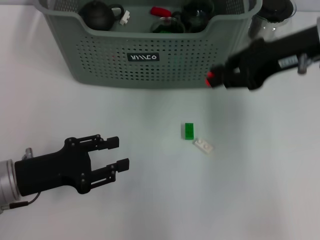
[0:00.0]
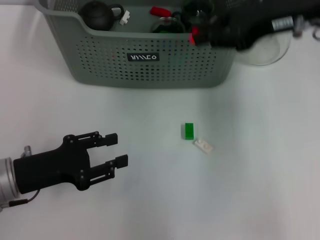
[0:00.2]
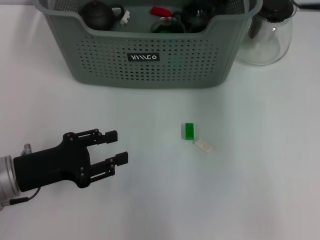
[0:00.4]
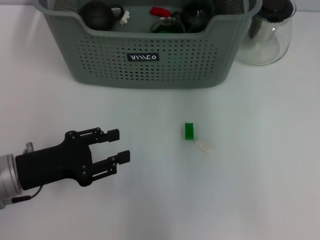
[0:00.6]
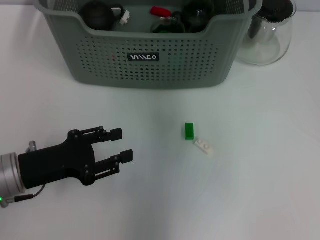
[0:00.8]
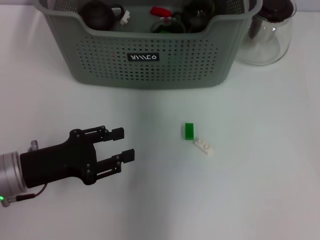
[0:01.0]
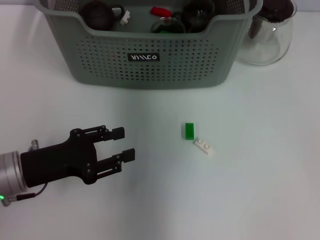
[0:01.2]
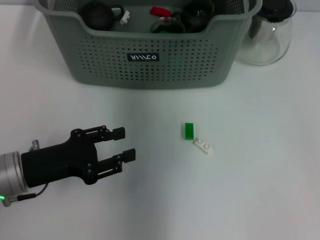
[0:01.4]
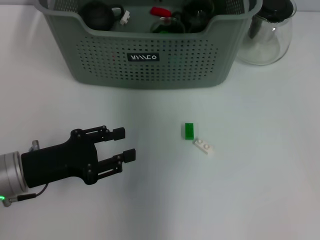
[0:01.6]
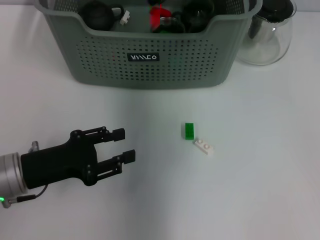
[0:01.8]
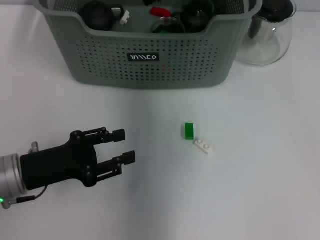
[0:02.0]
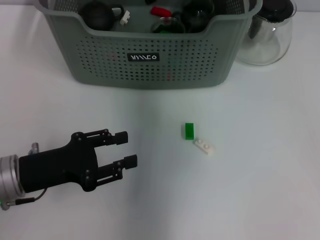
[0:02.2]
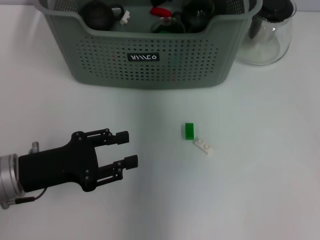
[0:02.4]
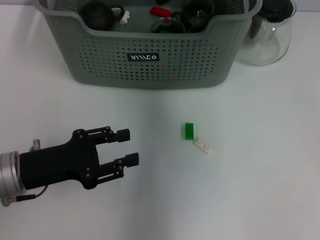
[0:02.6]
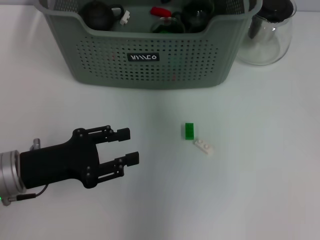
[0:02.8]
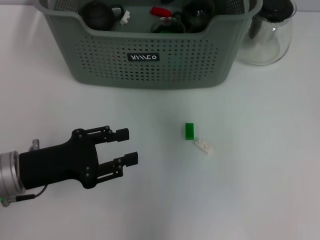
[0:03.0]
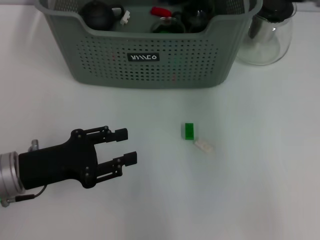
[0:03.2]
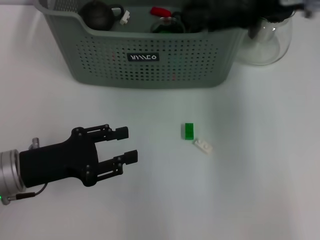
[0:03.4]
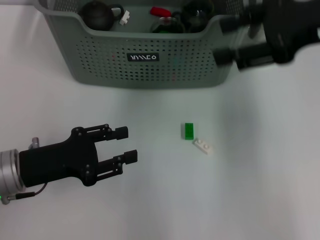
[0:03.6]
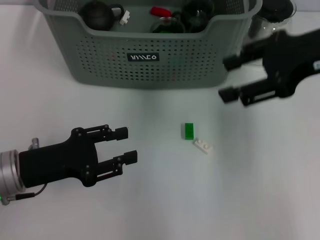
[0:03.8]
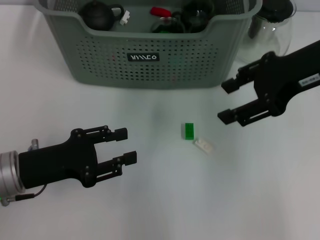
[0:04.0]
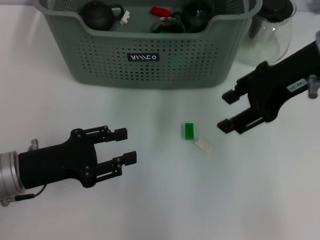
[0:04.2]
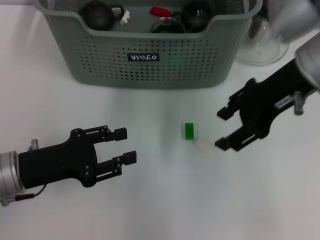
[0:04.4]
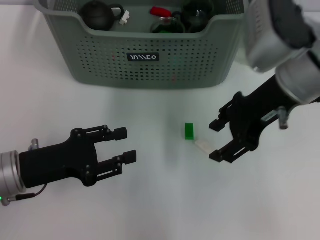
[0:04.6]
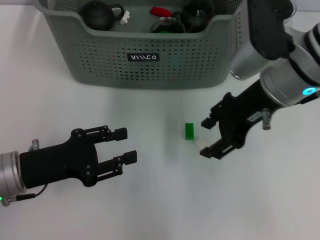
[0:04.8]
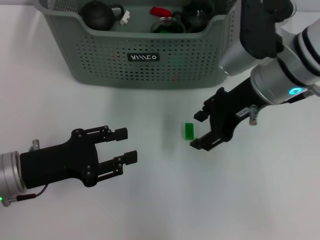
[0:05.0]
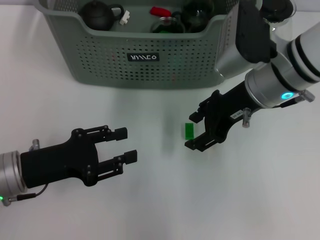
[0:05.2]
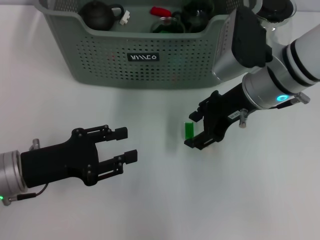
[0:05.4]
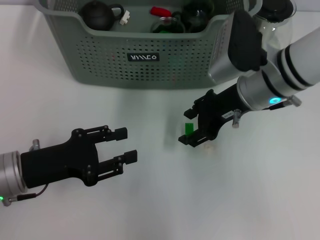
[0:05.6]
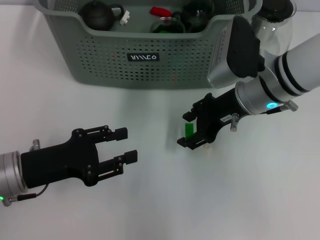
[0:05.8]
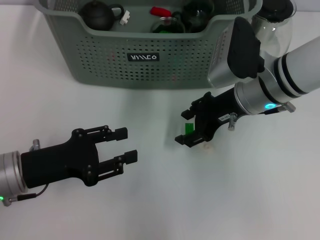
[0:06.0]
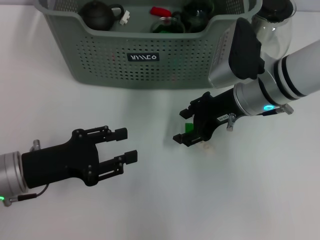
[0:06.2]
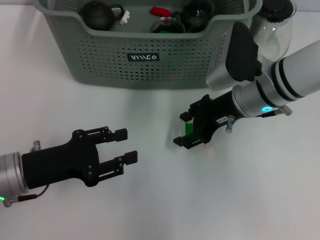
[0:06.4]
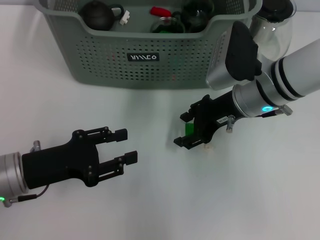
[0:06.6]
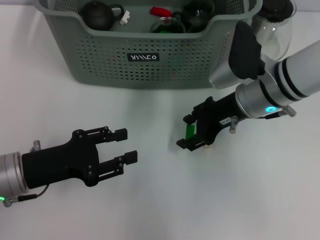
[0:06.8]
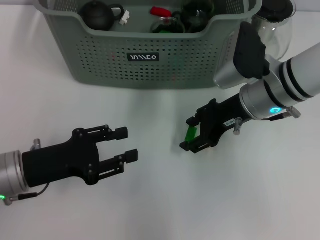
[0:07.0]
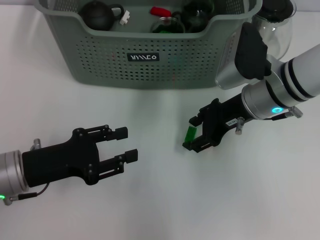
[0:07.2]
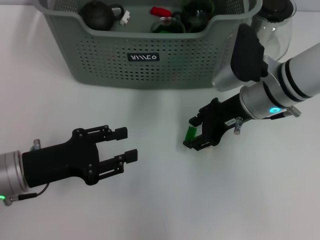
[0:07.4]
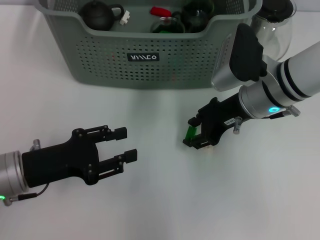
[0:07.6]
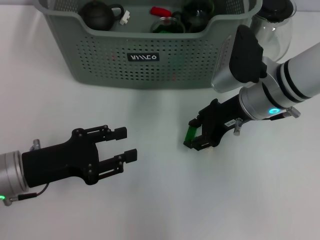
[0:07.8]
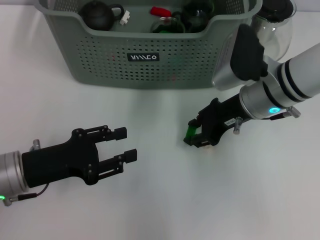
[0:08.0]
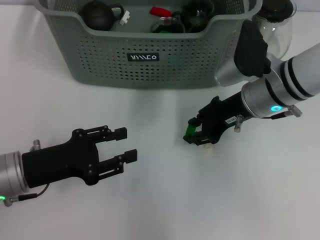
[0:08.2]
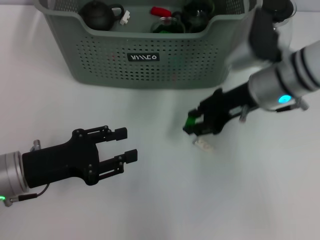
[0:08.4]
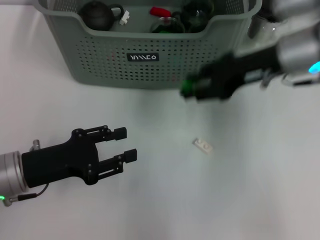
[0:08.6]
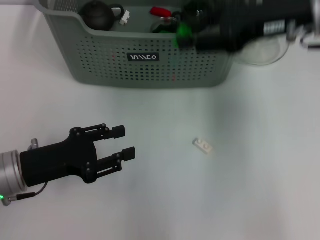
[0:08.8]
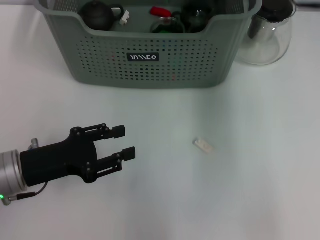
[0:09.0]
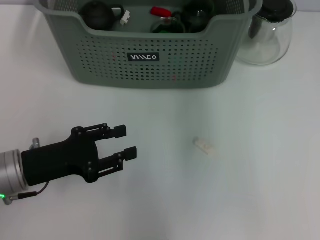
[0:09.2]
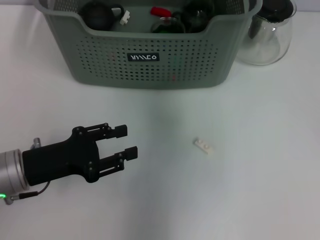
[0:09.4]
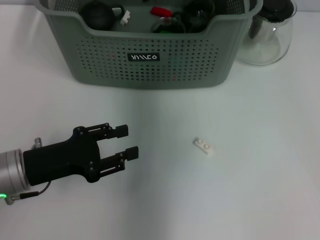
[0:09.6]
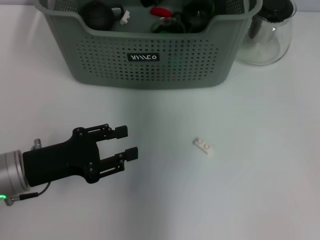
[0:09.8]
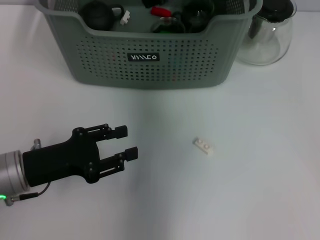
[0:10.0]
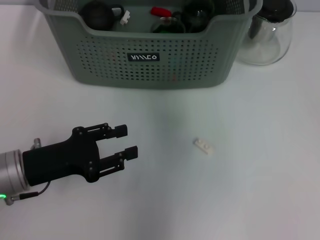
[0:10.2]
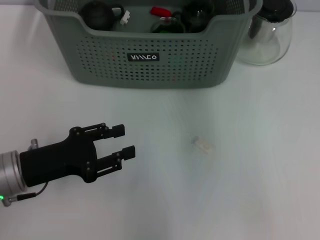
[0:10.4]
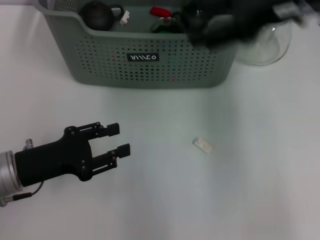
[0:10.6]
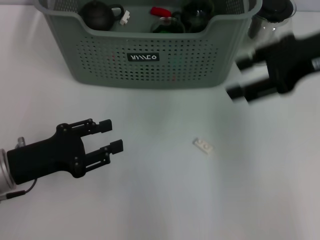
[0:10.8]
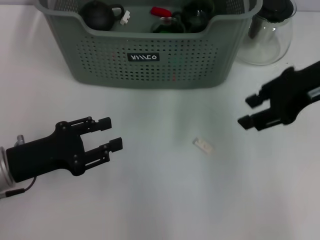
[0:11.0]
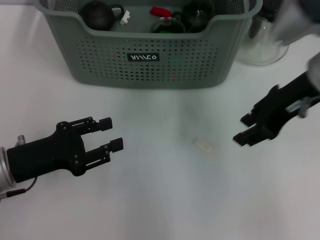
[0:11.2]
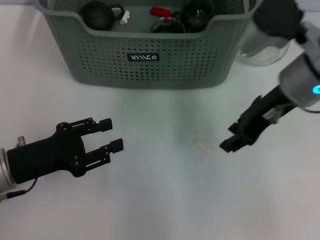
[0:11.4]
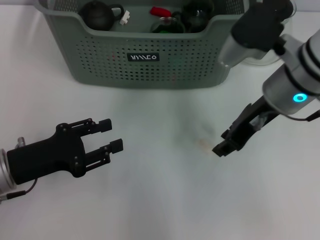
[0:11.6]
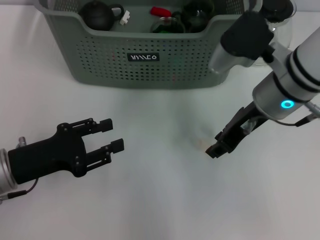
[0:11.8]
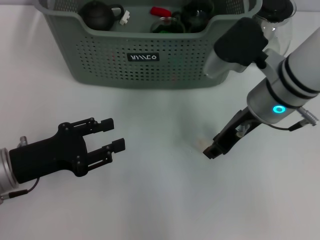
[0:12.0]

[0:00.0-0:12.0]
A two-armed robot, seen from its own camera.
Task of the whole recording: pick up the teacup on the table and place it into the storage bin, pick up the block on the table and place it into the storage bin.
Step, 0:00.0 to 0:03.0: Place the orange block in the storage box with right gripper.
Step, 0:03.2 to 0:08.2: Grasp the green block with right gripper.
Step, 0:08.4 to 0:10.4: Place the green block in the storage box with right gripper.
0:00.0 to 0:01.6: The right gripper travels to the left and forward by roughly 20 cm.
0:01.6 to 0:03.0: The right gripper goes roughly 5 cm to the right, and opens.
0:03.0 to 0:04.4: The right gripper goes about 10 cm backward and to the right.
0:04.4 to 0:06.0: The right gripper is displaced downward by some 10 cm.
0:06.0 to 0:07.6: Neither gripper changes place.
0:07.6 to 0:09.0: The right gripper shifts roughly 15 cm upward.
0:09.0 to 0:10.4: The right gripper moves approximately 10 cm to the left and comes back, and opens its fingers.
0:10.4 to 0:12.0: The right gripper heads downward and backward, covering about 15 cm, and closes up.

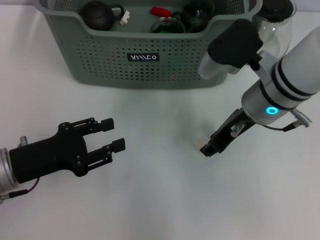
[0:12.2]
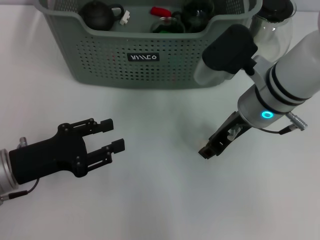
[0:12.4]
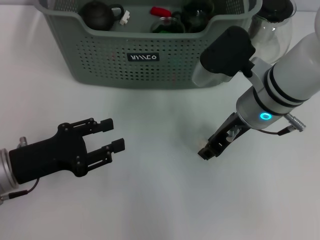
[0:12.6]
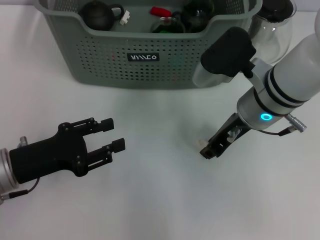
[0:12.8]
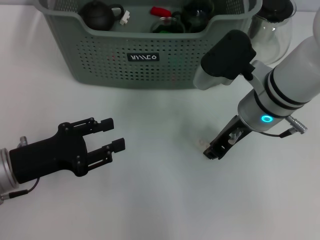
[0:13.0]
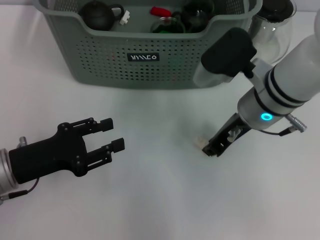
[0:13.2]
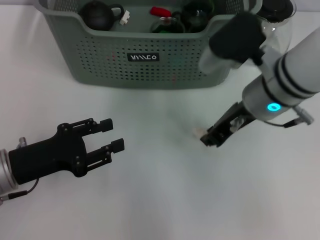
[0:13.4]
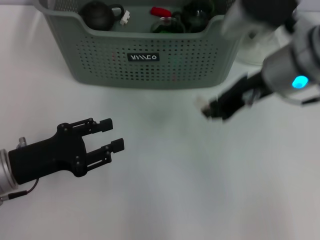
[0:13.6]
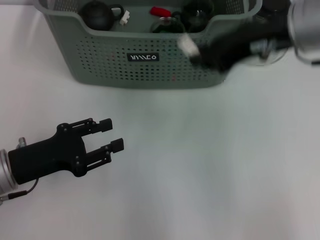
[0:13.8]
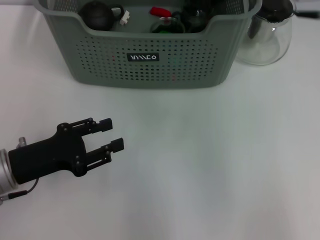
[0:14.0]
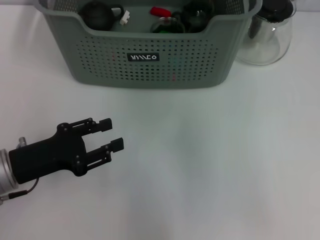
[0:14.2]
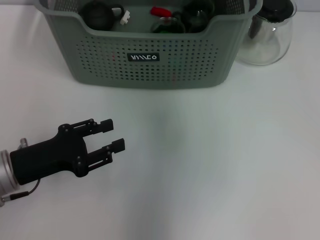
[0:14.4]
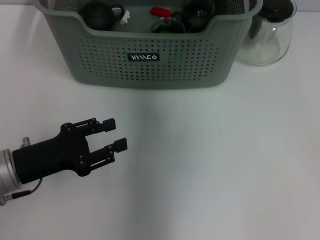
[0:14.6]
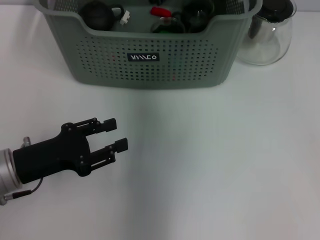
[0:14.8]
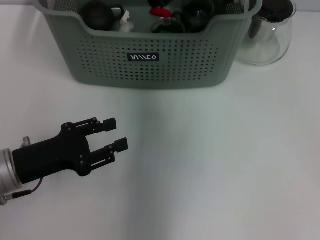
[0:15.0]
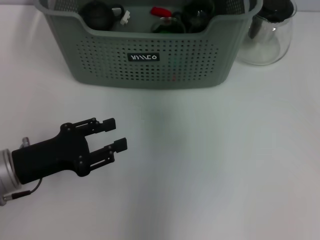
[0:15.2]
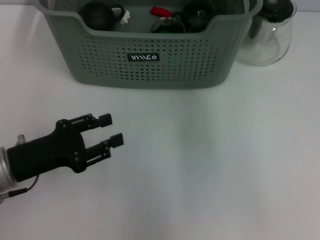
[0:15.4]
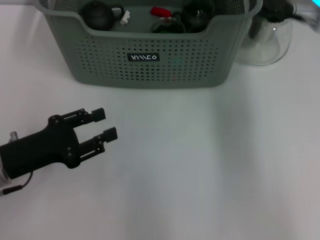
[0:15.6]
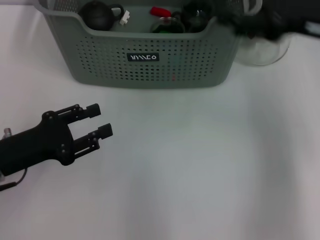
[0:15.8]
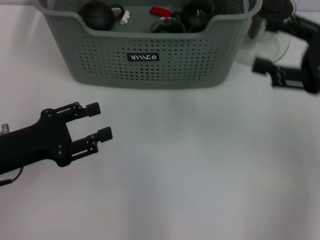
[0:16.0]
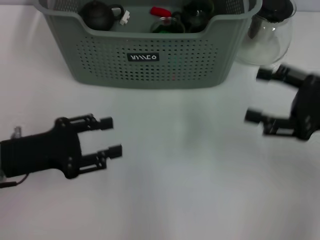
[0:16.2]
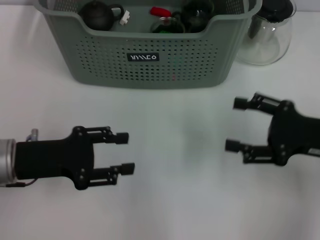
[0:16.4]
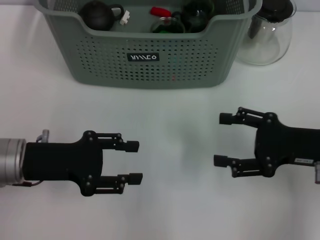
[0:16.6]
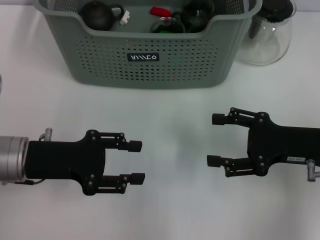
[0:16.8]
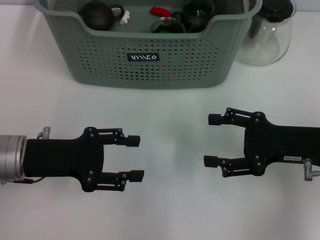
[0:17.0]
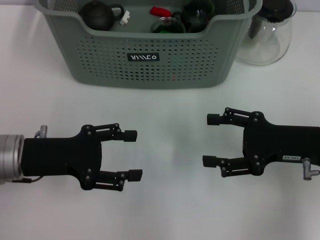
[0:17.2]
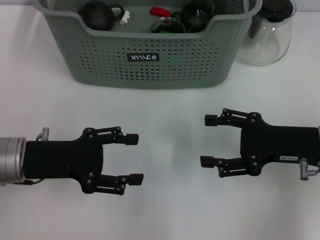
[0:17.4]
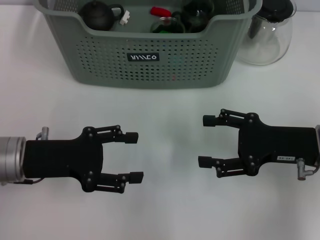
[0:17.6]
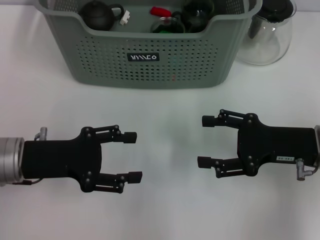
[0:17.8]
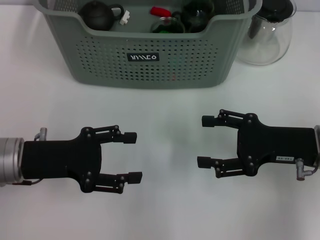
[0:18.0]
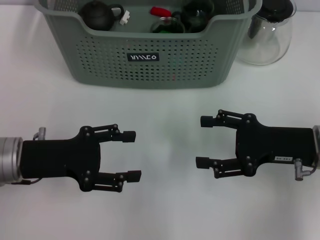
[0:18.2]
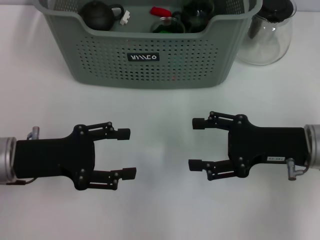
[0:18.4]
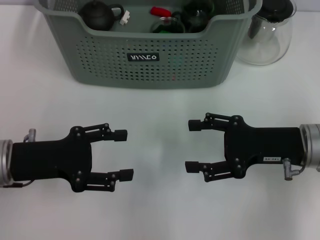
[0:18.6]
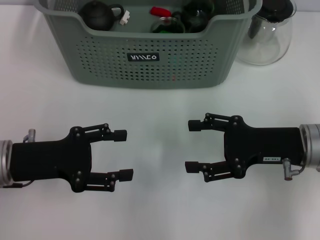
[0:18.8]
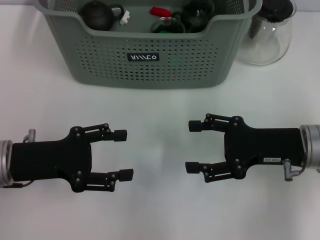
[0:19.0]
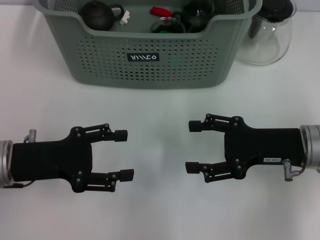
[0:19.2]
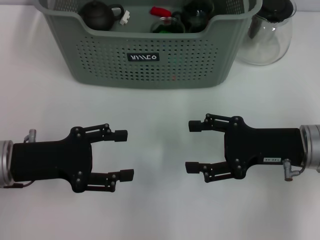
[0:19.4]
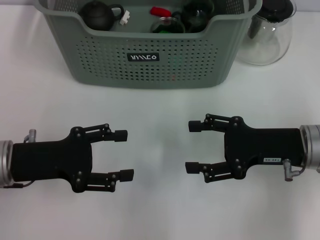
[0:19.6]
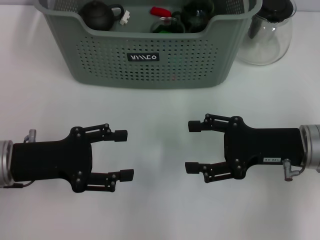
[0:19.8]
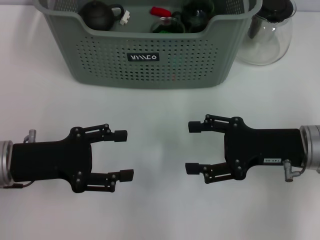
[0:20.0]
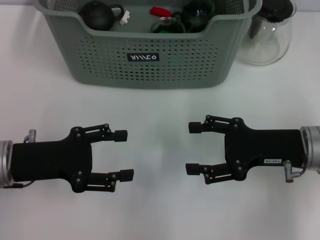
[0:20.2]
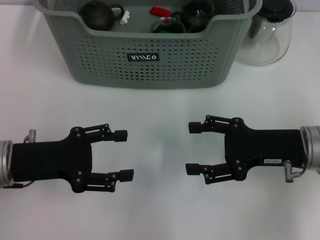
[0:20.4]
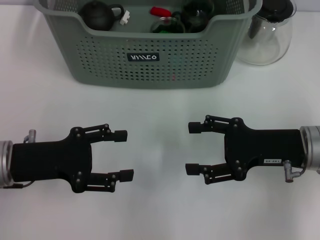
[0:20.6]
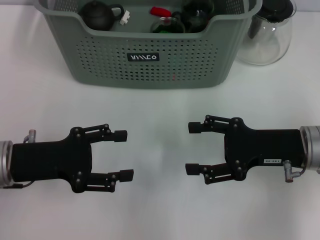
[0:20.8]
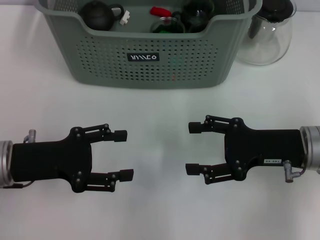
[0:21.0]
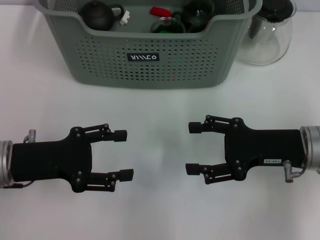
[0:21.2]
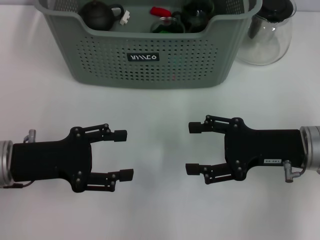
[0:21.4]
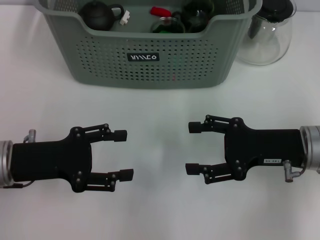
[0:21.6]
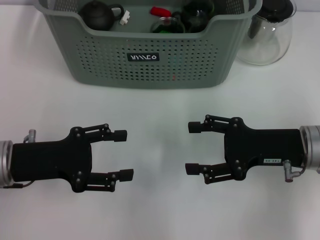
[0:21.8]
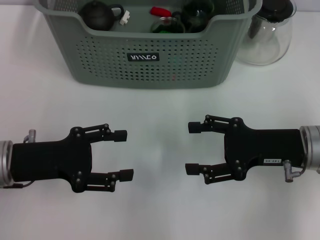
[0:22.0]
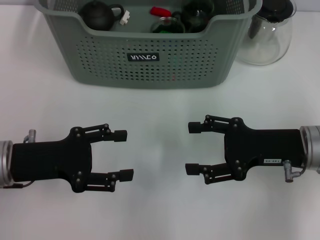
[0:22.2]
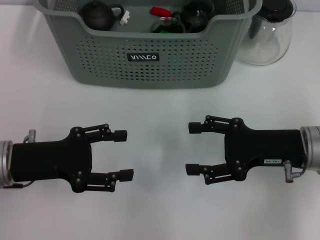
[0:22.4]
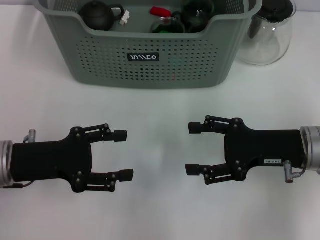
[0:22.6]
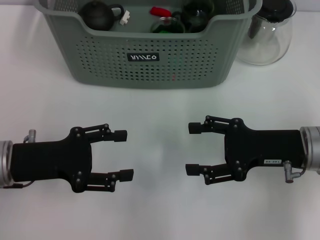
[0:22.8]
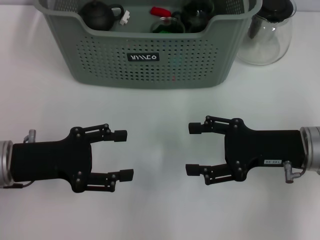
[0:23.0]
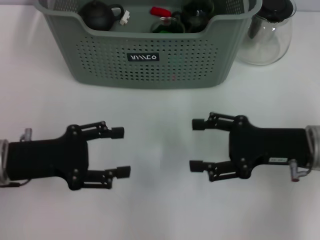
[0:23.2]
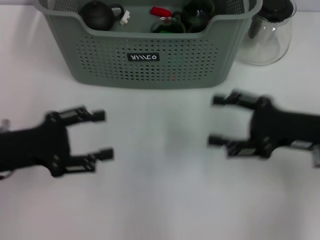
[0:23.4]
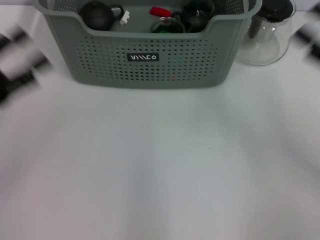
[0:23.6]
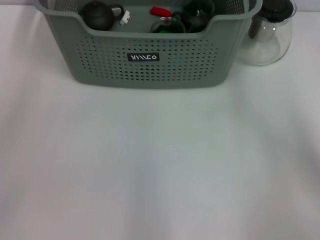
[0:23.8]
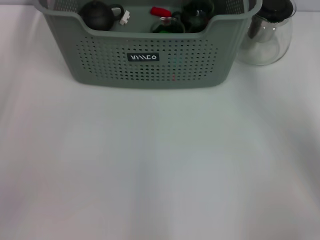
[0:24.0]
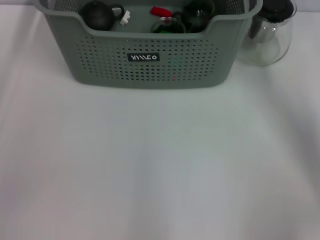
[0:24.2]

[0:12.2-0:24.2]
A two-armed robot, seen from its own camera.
Task of the whole recording: pick up the teacup on the table and place it into the storage bin, pick up the block on the table and place it into the storage bin.
Step, 0:13.2 to 0:15.2: Place the white block in the storage box with right gripper.
0:12.2 to 0:13.8: The right gripper shifts approximately 10 cm upward.
0:13.8 to 0:15.2: The right gripper goes some 15 cm forward and to the left.
0:15.2 to 0:16.6: The right gripper heads backward, to the right and downward, covering about 30 cm, and opens.
0:16.6 to 0:19.8: The grippers make only small movements.
0:19.8 to 0:22.6: The two grippers keep their place.
0:22.6 to 0:24.2: The left gripper moves to the left, about 10 cm; the right gripper goes about 10 cm to the right.
